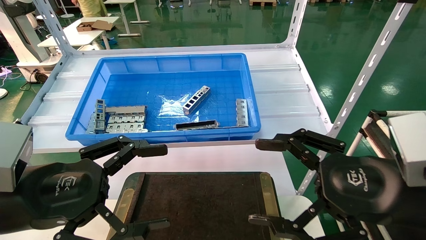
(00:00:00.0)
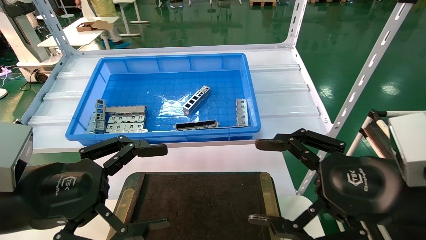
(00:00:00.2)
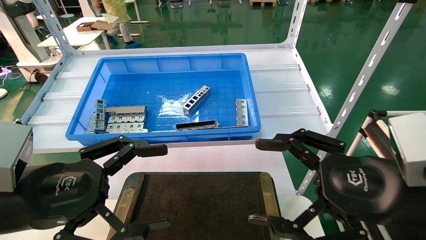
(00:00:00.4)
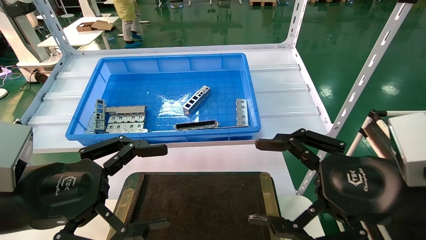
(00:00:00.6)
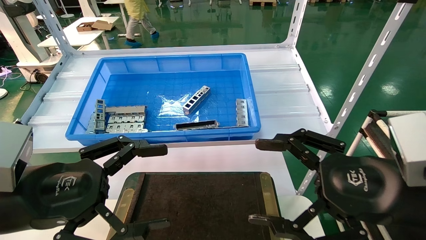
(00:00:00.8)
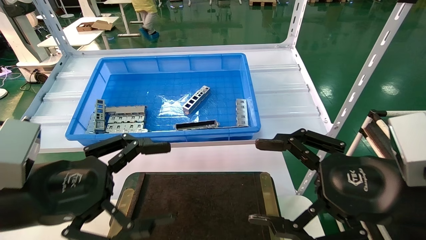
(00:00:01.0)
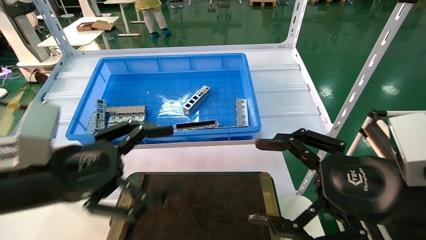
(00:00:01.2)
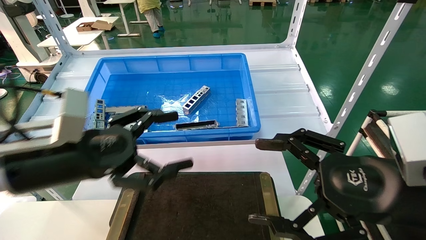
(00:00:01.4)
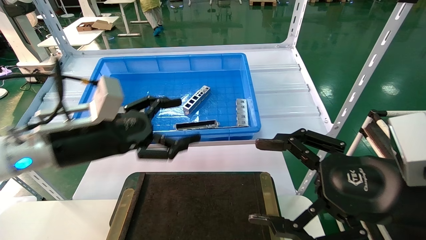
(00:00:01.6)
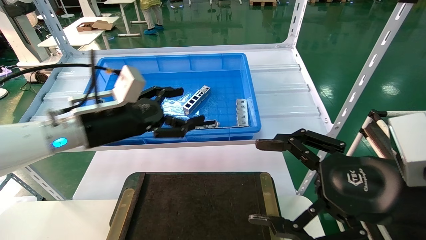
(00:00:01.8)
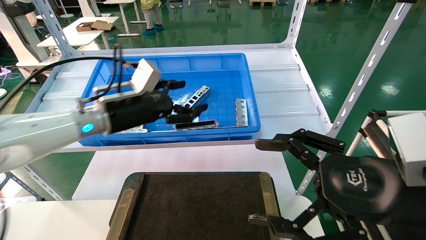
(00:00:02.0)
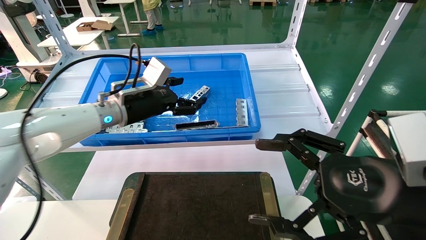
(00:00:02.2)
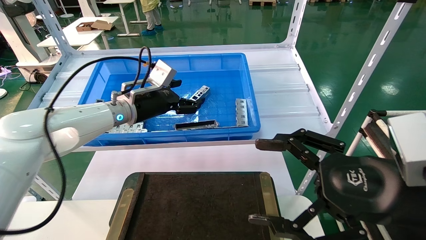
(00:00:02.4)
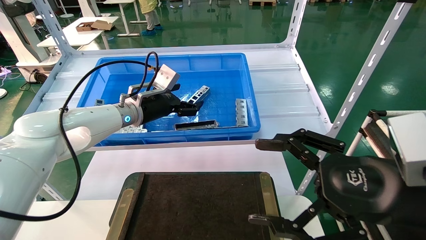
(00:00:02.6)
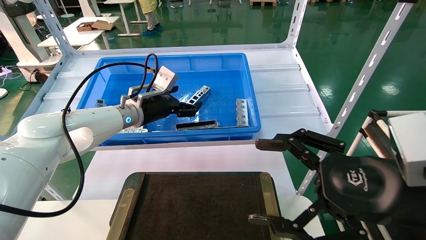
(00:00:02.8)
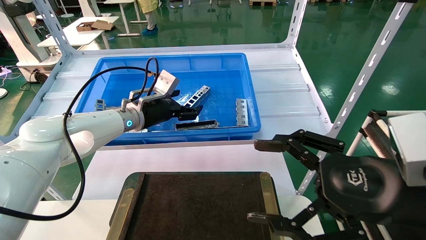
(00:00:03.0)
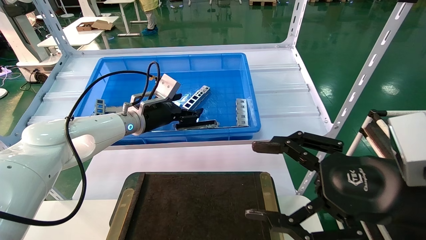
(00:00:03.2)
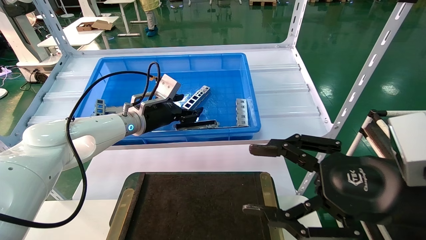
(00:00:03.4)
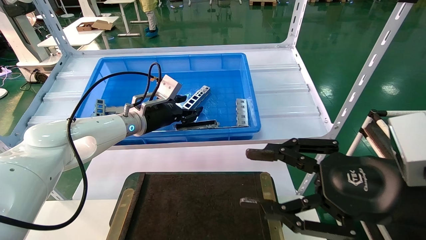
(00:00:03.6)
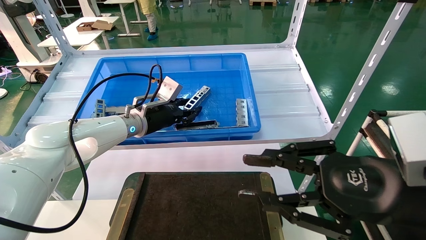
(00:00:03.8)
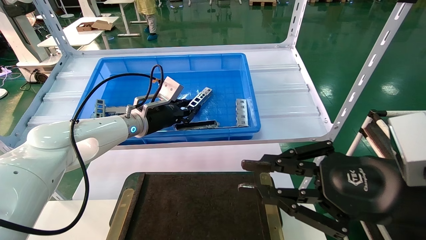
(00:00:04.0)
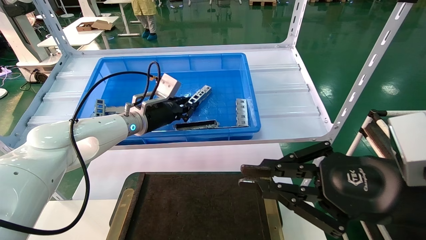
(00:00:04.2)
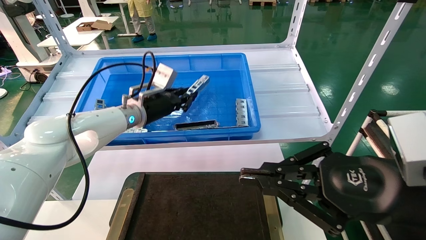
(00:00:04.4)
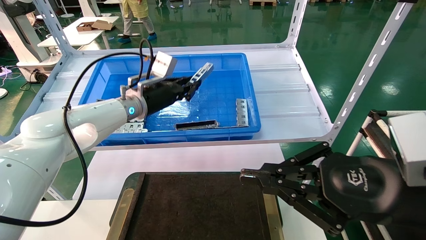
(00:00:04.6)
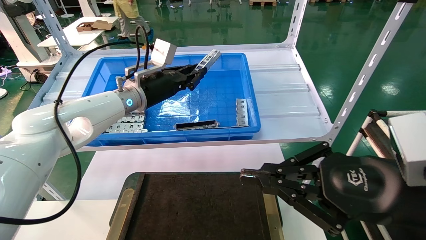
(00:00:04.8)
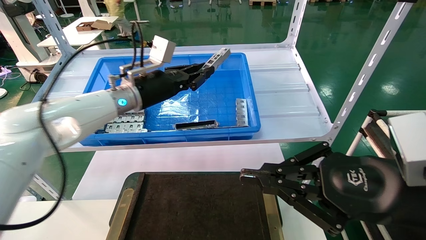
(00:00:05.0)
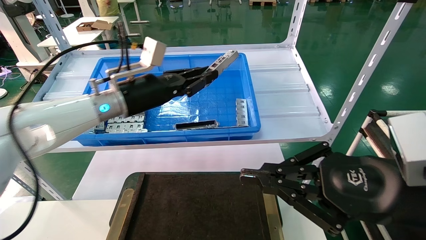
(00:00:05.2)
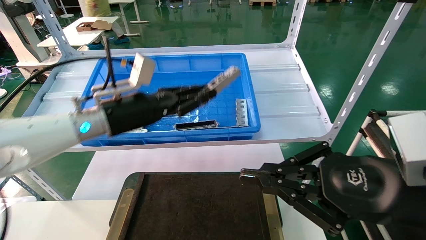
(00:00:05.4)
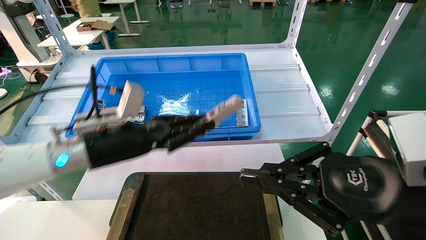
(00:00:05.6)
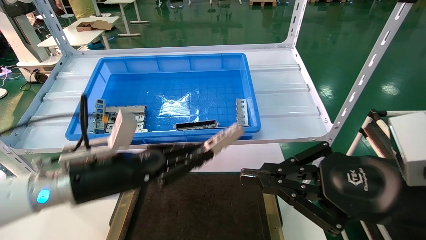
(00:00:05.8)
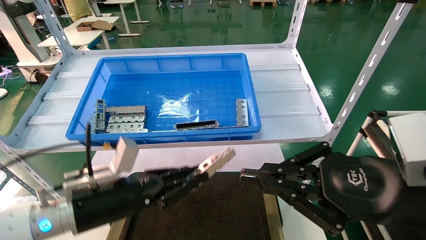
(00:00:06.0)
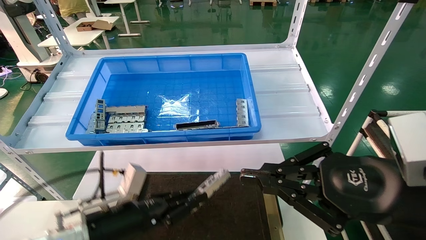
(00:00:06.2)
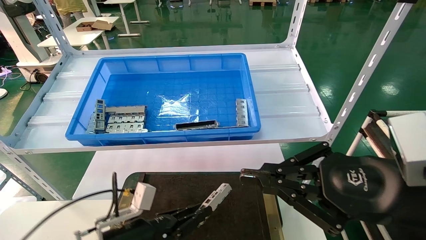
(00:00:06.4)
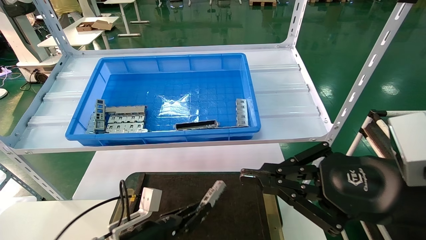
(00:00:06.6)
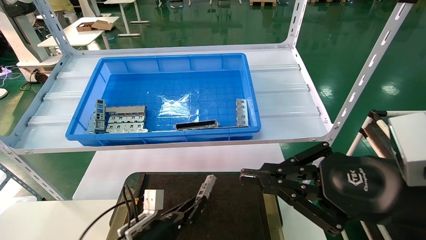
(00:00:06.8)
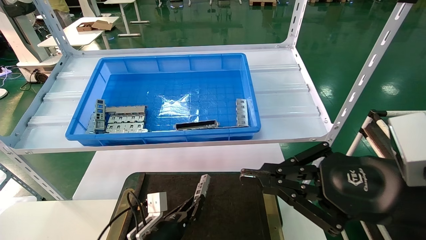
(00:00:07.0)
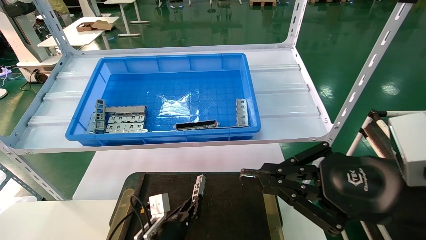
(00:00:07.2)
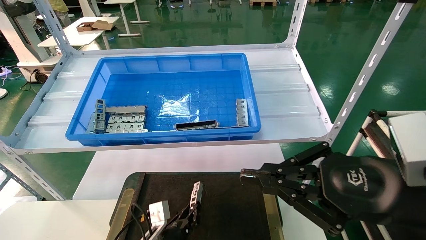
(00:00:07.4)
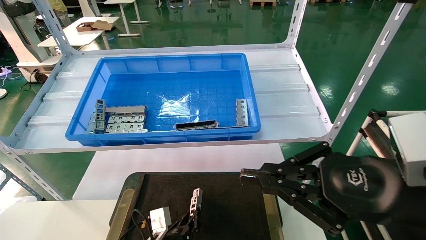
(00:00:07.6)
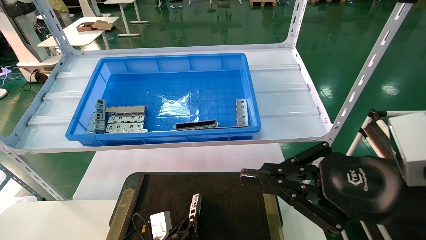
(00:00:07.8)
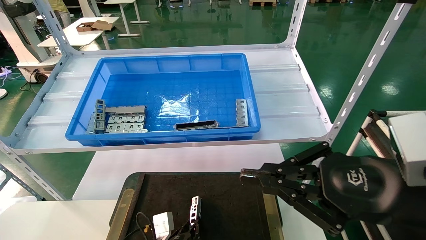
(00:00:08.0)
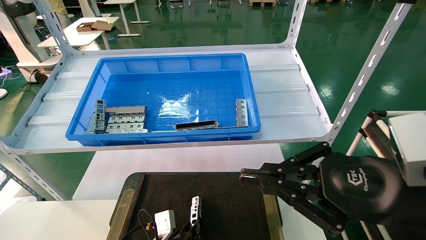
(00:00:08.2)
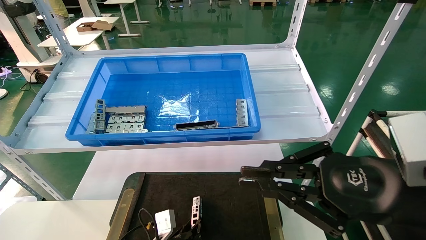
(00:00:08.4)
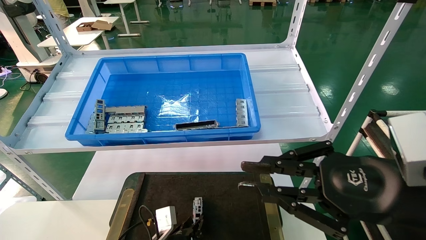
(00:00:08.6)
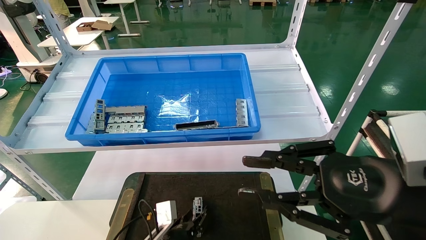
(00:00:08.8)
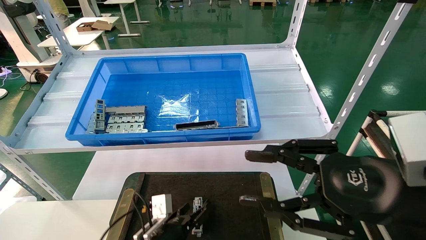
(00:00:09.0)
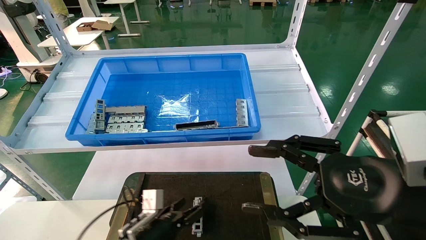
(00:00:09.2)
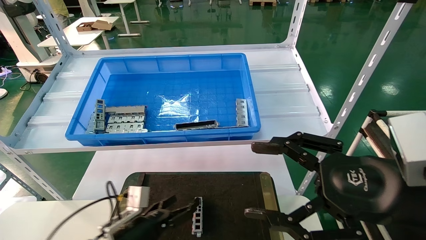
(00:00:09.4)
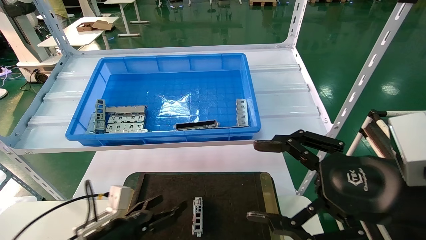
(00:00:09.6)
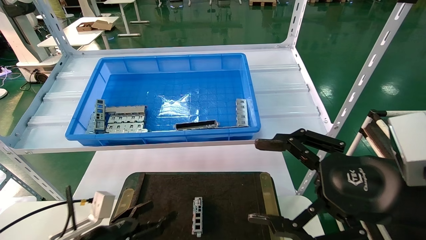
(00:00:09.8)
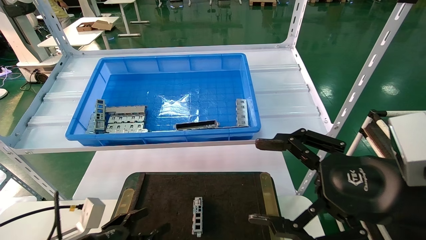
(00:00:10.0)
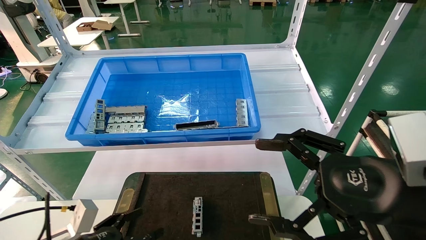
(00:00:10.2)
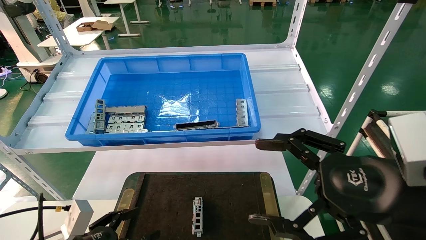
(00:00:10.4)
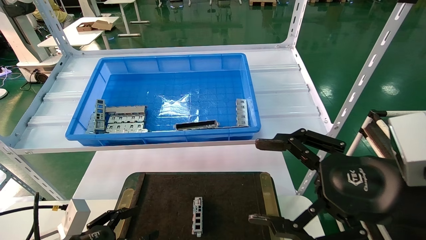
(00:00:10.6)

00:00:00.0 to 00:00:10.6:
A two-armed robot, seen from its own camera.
Task of the whole recording: Grasp the part with one hand and place it on the black container.
Step, 00:00:01.4 to 00:00:04.4: Pick up the front USB bracket from the feeding area.
Step, 00:00:04.6 to 00:00:08.8: Place the front USB bracket into the box.
00:00:00.0 to 00:00:01.6: The left gripper goes roughly 10 cm forward.
00:00:01.6 to 00:00:03.0: The left gripper is displaced forward by approximately 20 cm.
00:00:03.0 to 00:00:04.6: The left gripper closes. Meanwhile the right gripper closes its fingers.
00:00:04.6 to 00:00:06.0: The left gripper shifts about 25 cm backward and downward.
00:00:06.0 to 00:00:07.6: The left gripper shifts about 25 cm downward and to the right.
00:00:07.6 to 00:00:09.0: The left gripper opens its fingers. Meanwhile the right gripper opens its fingers.
00:00:09.0 to 00:00:10.6: The left gripper heads to the left, backward and upward, covering approximately 20 cm, and opens, while the right gripper opens.
